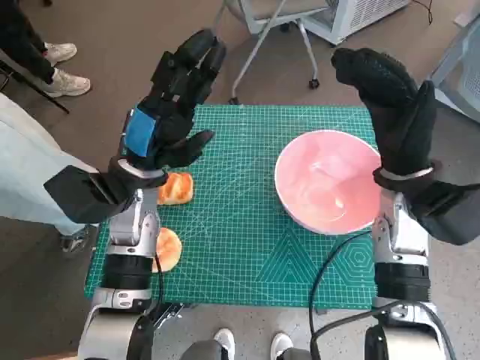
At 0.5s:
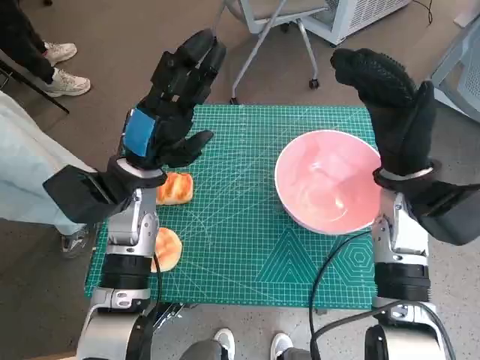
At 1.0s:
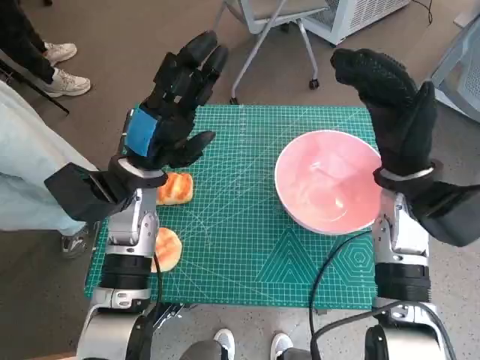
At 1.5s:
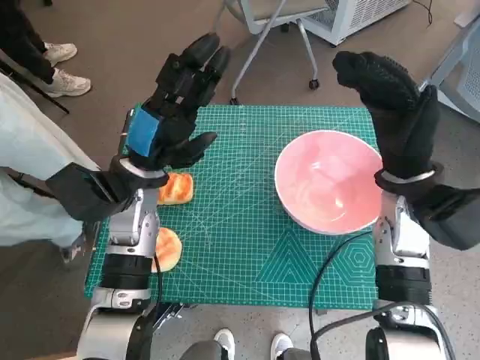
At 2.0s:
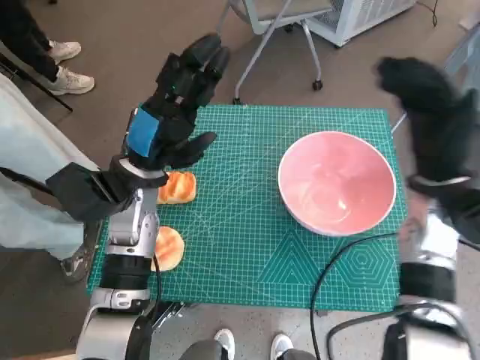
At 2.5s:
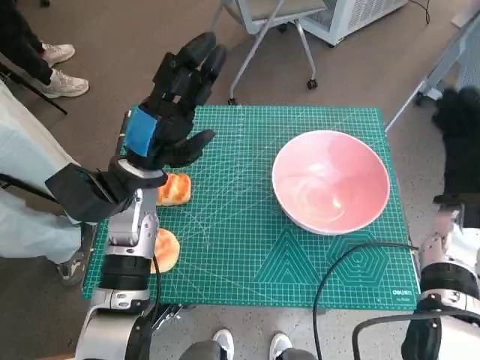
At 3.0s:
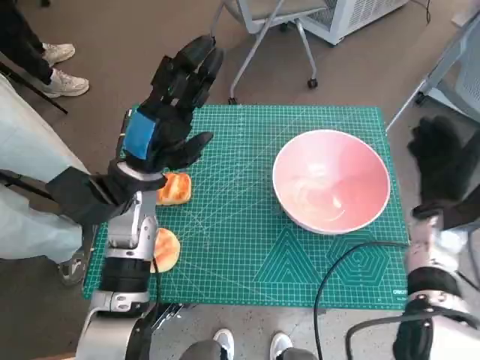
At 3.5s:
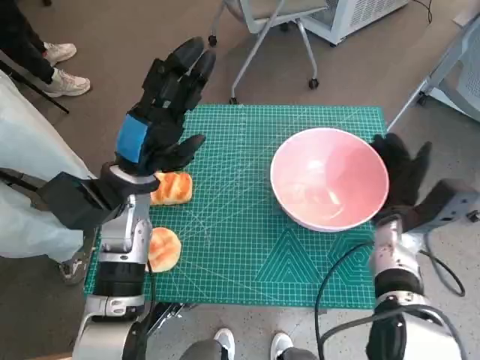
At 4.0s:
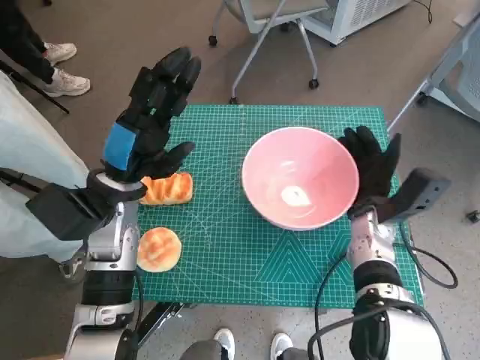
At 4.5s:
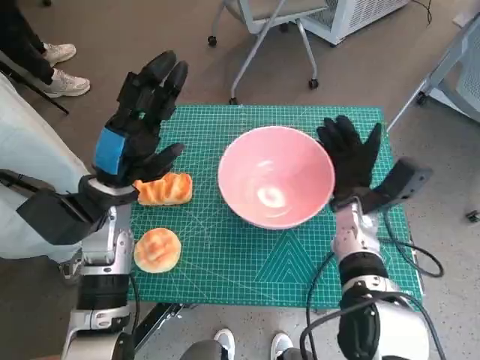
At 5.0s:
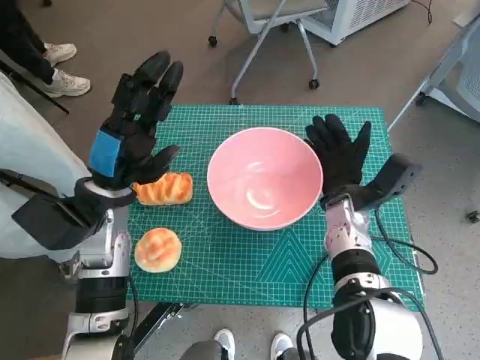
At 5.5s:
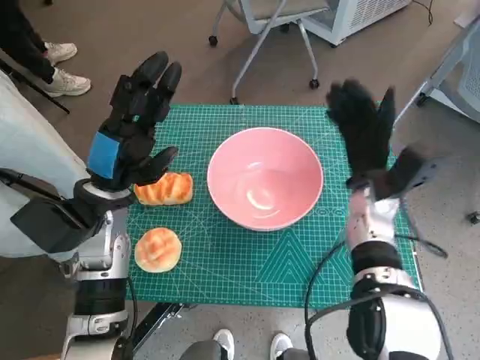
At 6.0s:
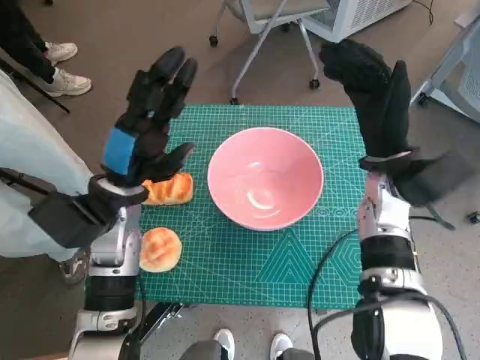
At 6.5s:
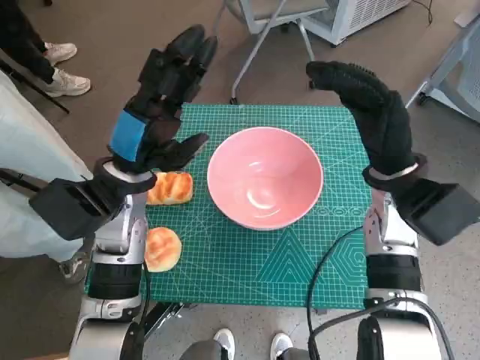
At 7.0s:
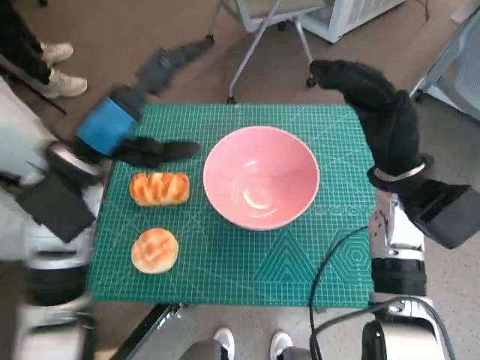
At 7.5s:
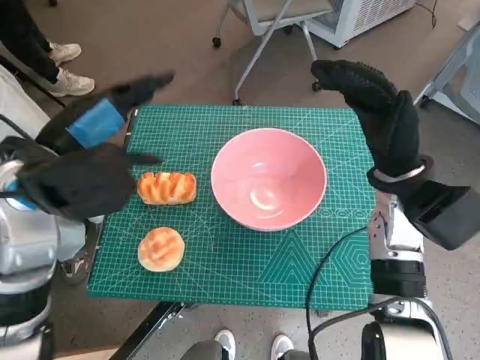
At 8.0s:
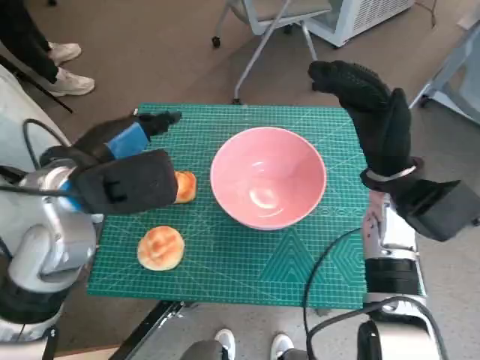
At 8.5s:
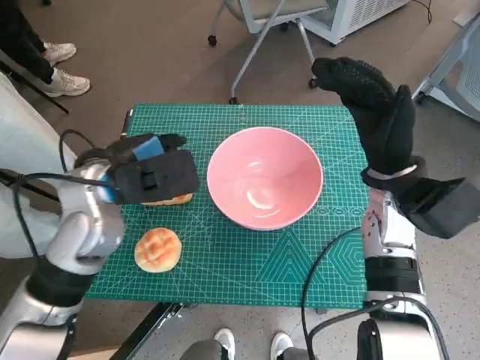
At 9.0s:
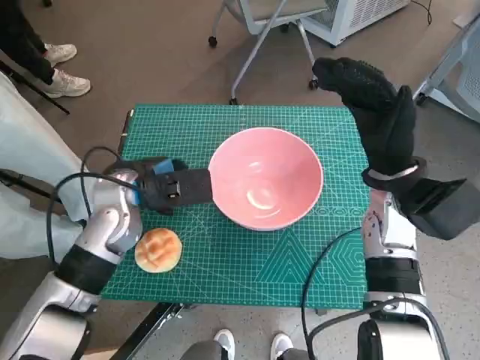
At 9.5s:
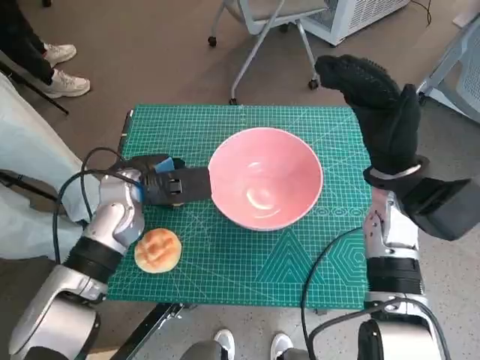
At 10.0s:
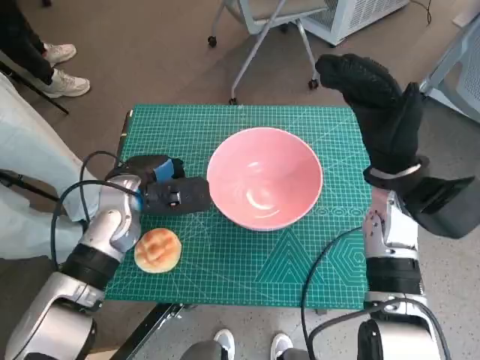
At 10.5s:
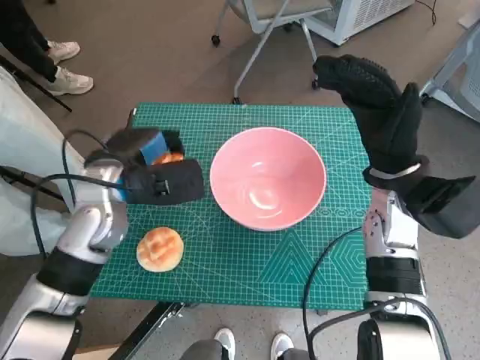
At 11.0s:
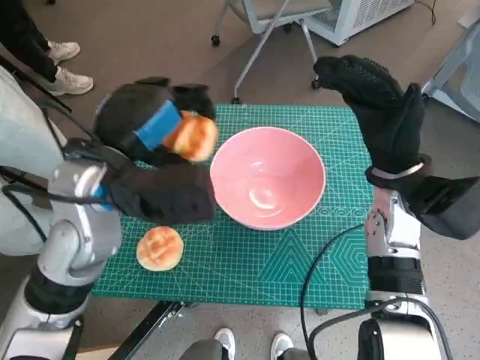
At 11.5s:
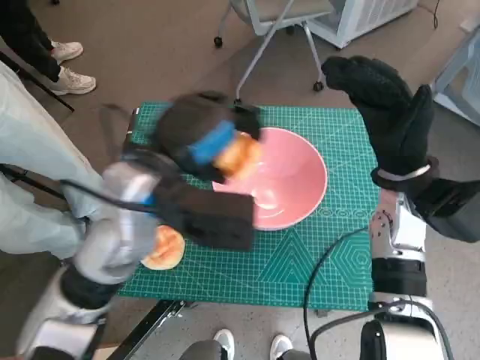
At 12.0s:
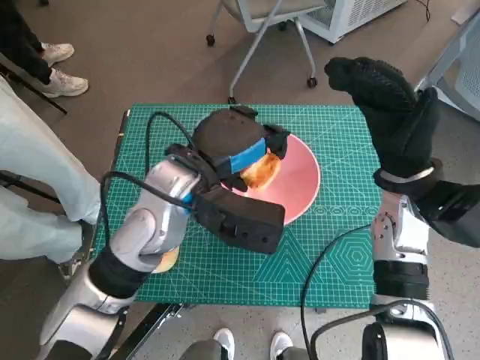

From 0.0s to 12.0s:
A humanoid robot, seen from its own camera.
Task of the whole recording: Push the bowl into the center of the table and put the bread into the bowl.
Step, from 0.0s to 5.5s: Move the pink bowl to the center of table with right hand.
Step, from 6.0s to 9.5s: Grasp the long bread with left hand.
From 2.0s to 4.0s: The right hand travels downward by about 10 cm.
From 4.0s to 6.0s: The right hand goes roughly 10 cm upward.
From 6.0s to 8.0s: The left hand travels upward by about 10 cm.
From 8.0s to 10.0s: The left hand goes some 15 cm downward and forward.
From 10.0s to 12.0s: The left hand is displaced to the right and upward by some 15 cm.

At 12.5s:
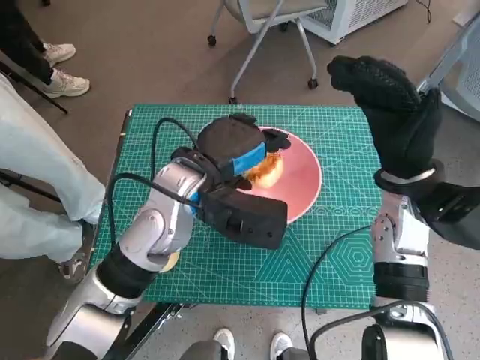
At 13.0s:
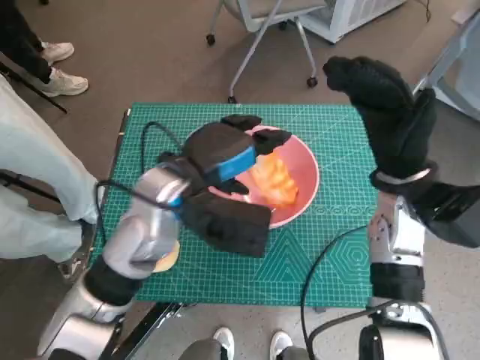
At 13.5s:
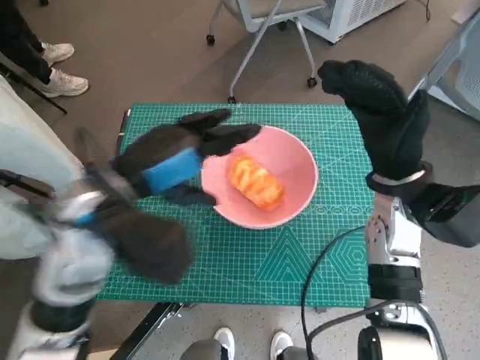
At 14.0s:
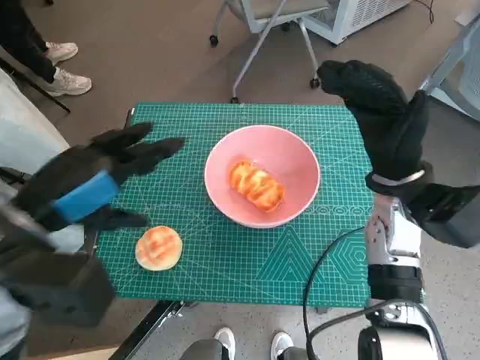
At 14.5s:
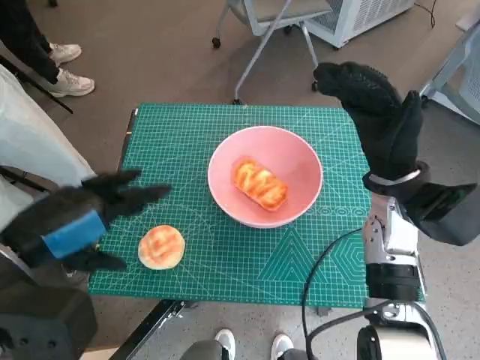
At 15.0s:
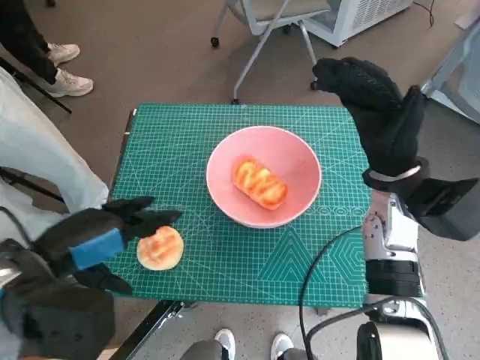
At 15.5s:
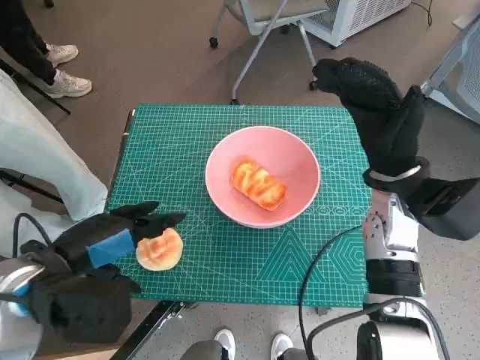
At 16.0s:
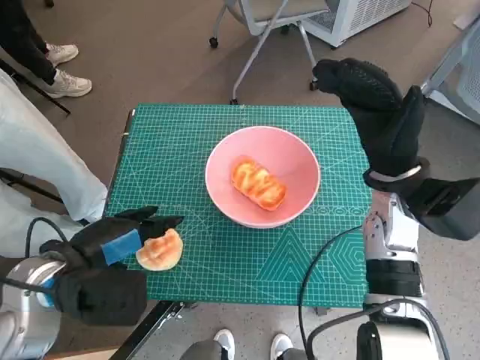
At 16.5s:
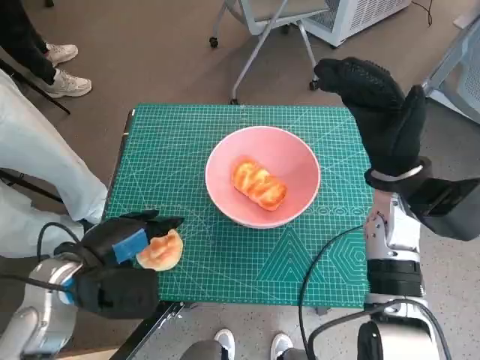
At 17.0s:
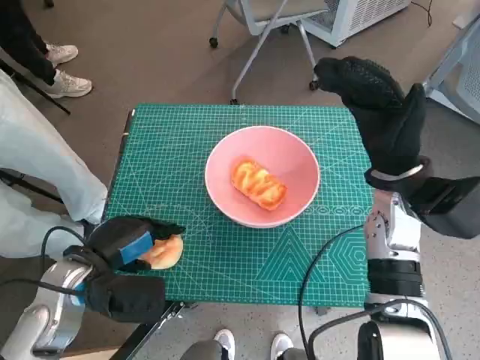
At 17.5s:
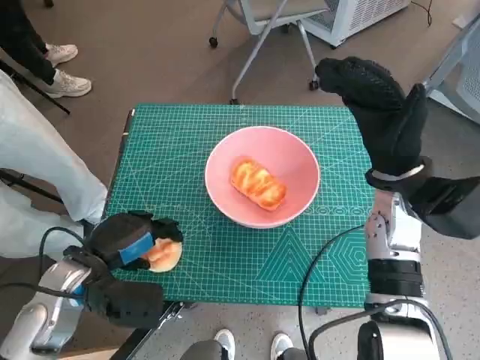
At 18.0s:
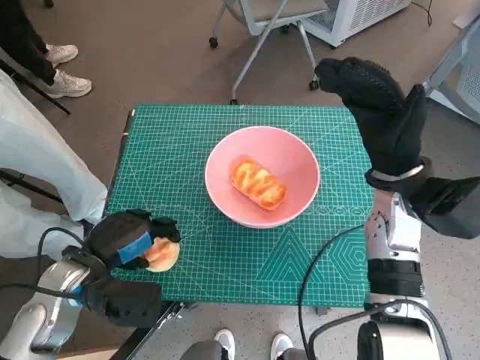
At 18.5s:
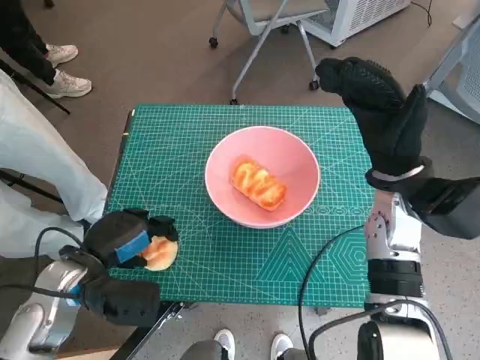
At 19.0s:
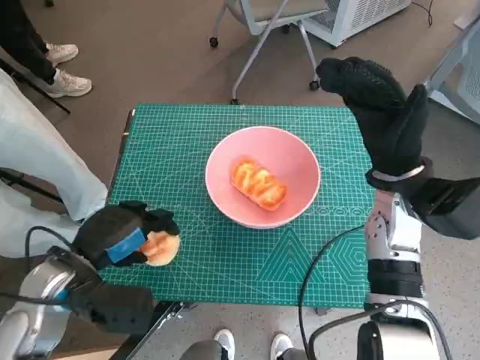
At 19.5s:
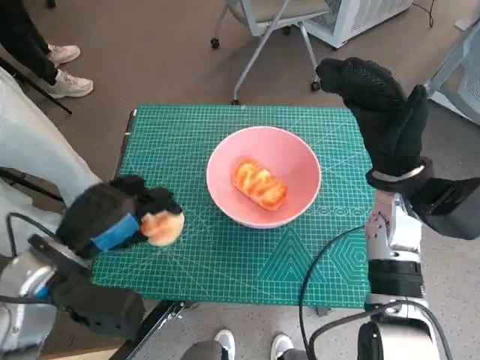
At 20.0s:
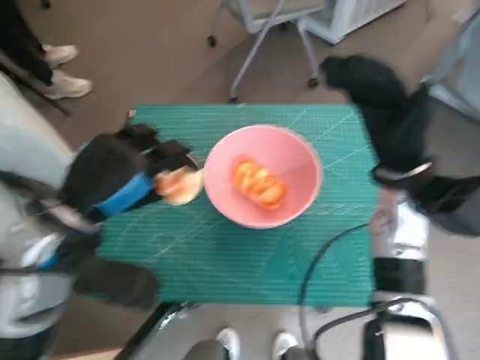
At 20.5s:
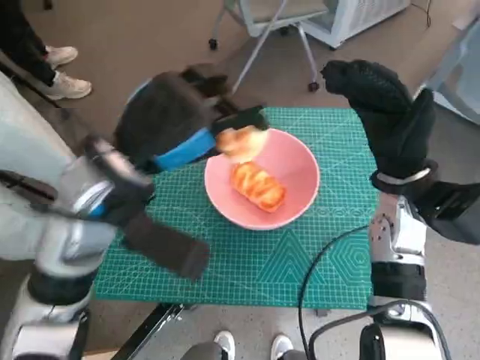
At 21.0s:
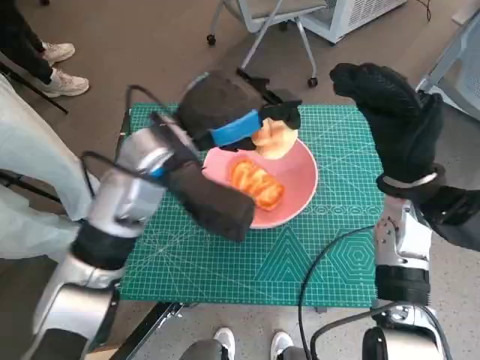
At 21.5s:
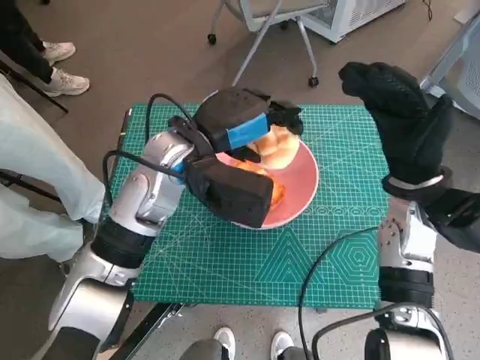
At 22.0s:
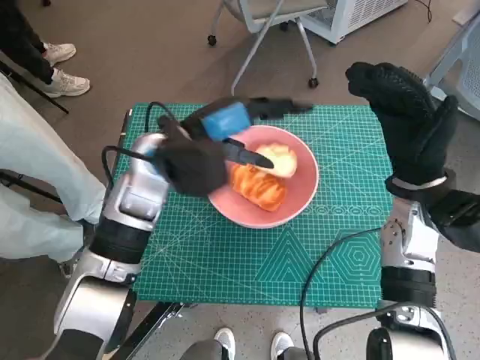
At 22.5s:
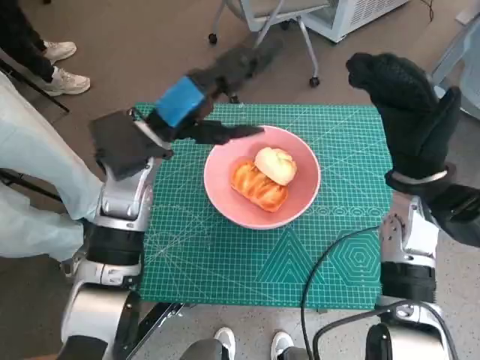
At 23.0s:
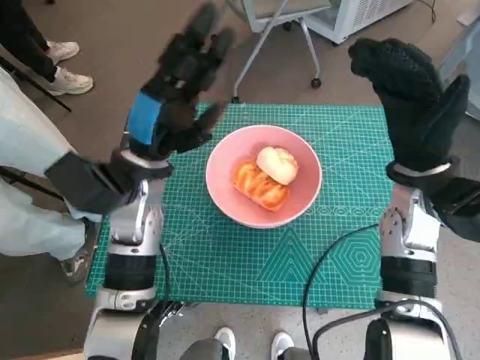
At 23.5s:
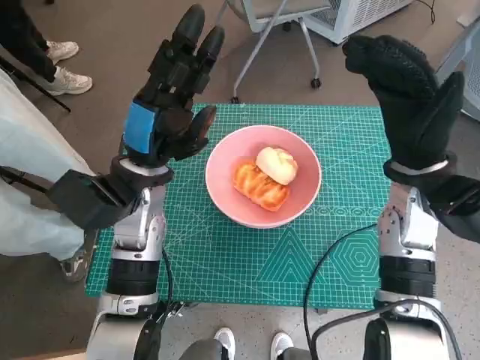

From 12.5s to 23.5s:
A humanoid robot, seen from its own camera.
Task of the whole recording: Push the bowl into the center of the table and put the bread into the bowl.
Step, from 13.5s to 17.0s: Grasp the round bread with left hand.
Step, from 17.5s to 22.0s: Place the round bread in pink bowl with left hand.
From 12.5s to 14.5s: The left hand heads to the left and backward, covering approximately 20 cm.
From 14.5s to 16.0s: The left hand heads downward, covering roughly 10 cm.
From 16.0s to 18.0s: The left hand shifts about 5 cm downward.
From 18.0s to 20.0s: The left hand shifts some 10 cm upward.
From 20.0s to 21.5s: The left hand heads to the right and forward, covering some 15 cm.
From 21.5s to 23.5s: The left hand is displaced to the left by approximately 5 cm.

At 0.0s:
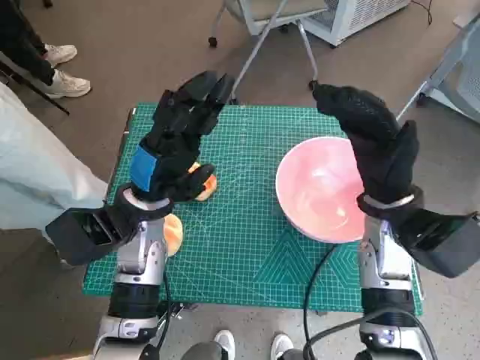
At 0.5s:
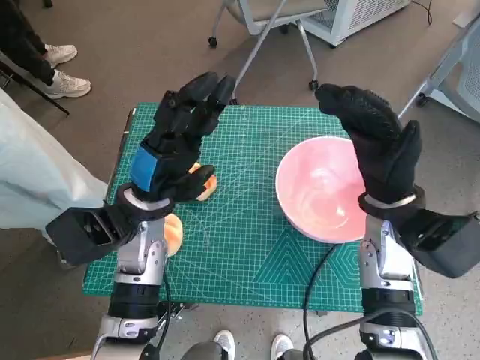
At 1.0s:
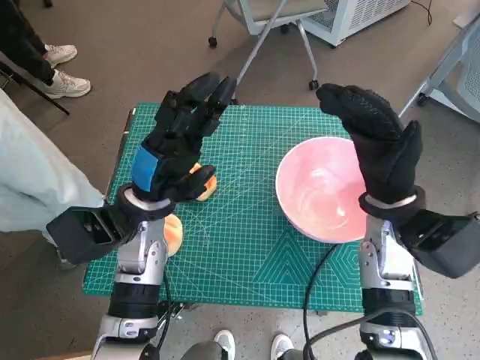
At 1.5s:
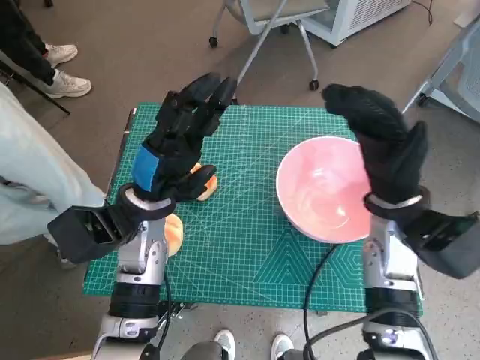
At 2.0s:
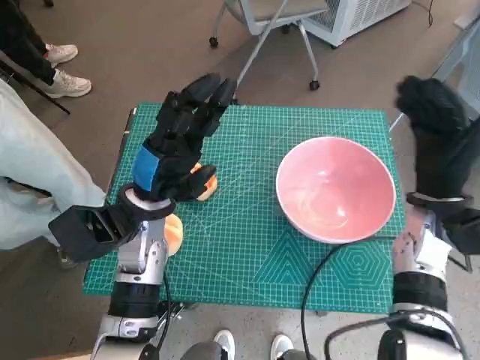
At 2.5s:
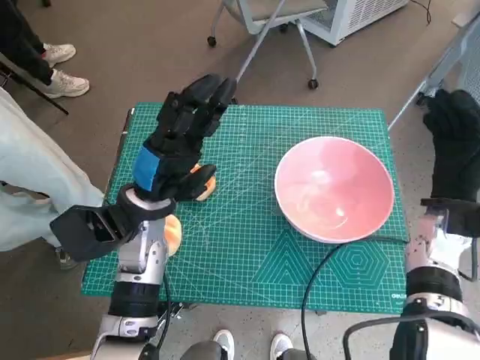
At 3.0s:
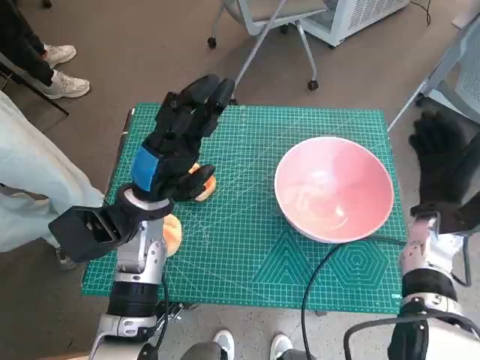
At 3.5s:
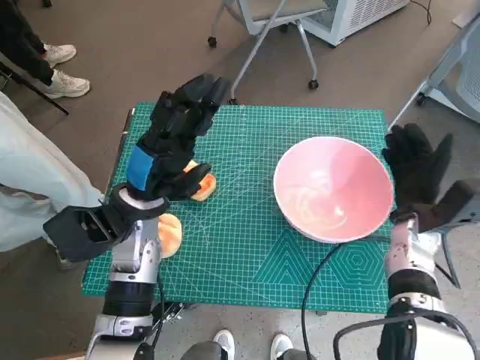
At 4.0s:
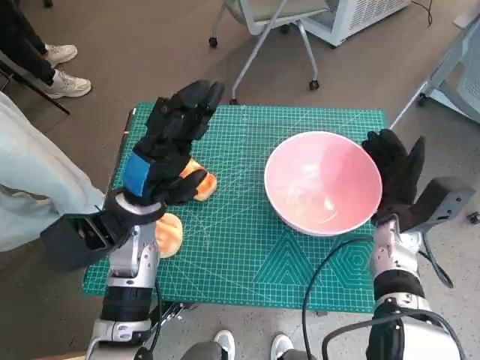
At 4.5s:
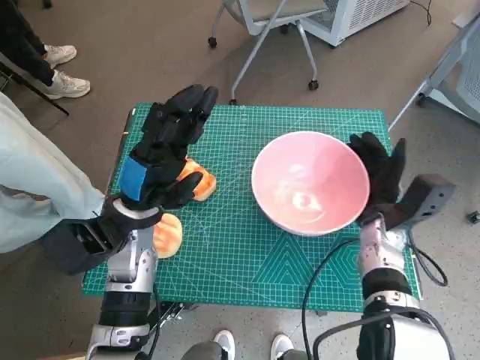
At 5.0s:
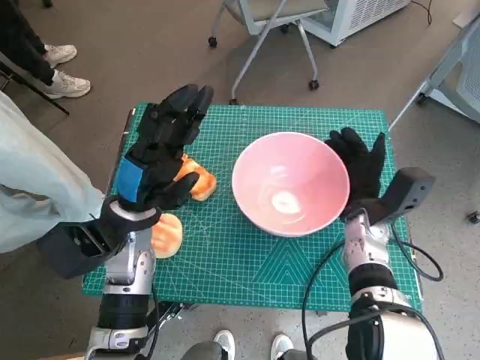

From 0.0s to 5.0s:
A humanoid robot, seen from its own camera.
Task of the whole recording: Push the bowl into the center of the table and put the bread into the bowl.
From 2.5s to 5.0s: The right hand heads to the left and downward, covering about 10 cm.
